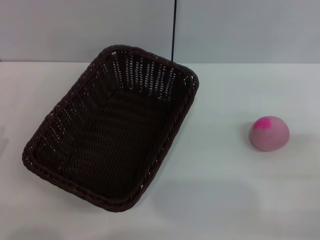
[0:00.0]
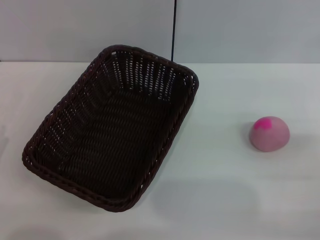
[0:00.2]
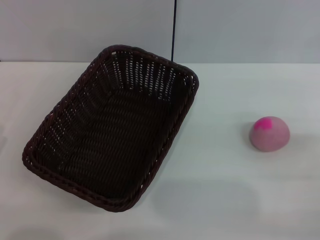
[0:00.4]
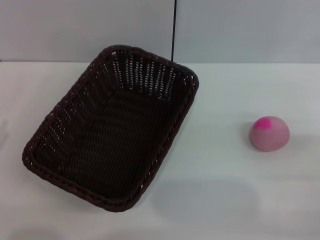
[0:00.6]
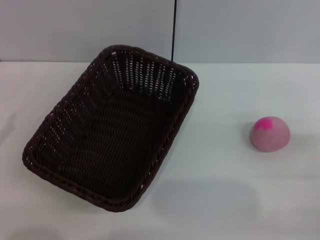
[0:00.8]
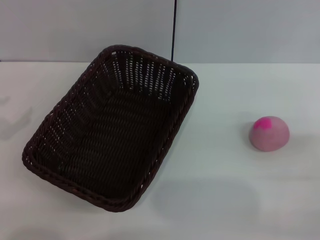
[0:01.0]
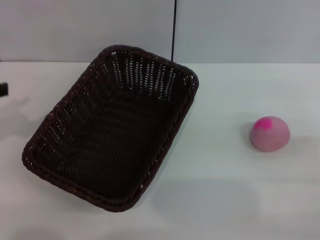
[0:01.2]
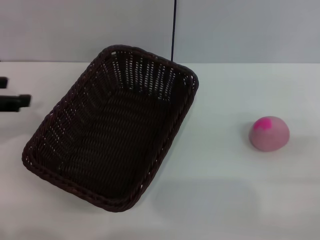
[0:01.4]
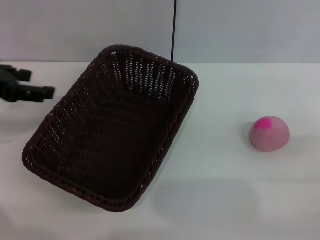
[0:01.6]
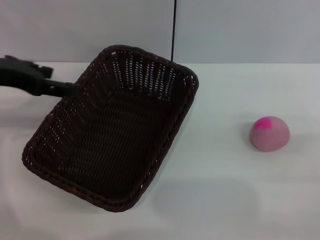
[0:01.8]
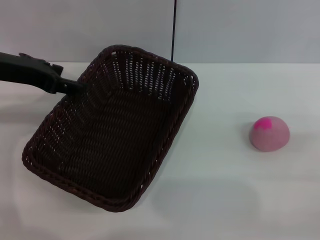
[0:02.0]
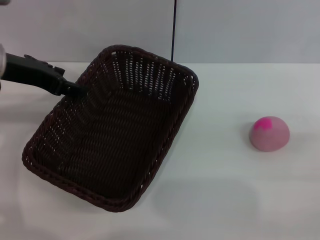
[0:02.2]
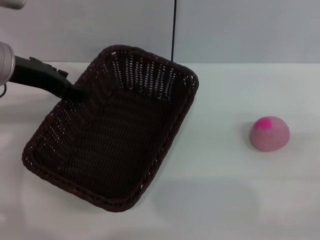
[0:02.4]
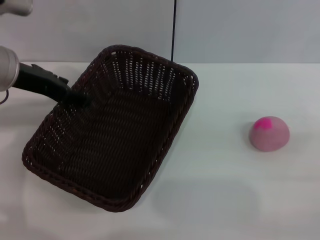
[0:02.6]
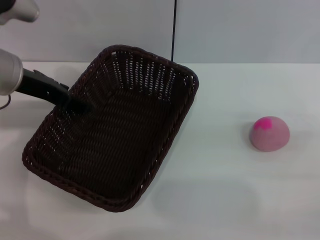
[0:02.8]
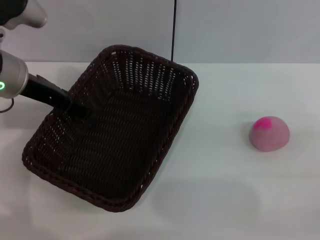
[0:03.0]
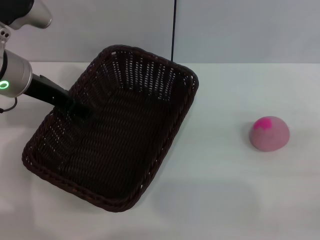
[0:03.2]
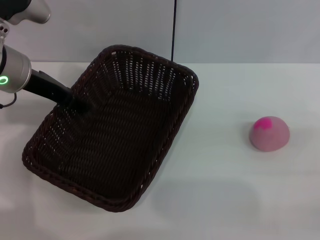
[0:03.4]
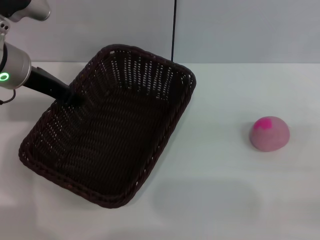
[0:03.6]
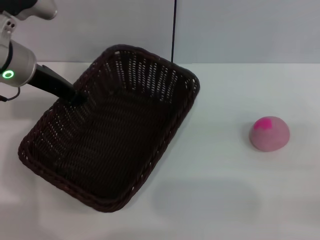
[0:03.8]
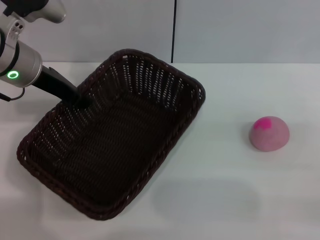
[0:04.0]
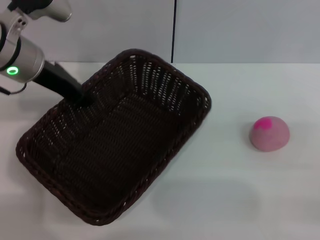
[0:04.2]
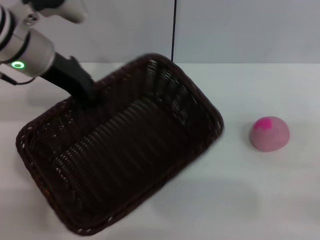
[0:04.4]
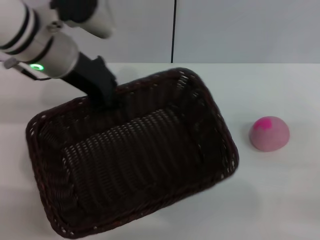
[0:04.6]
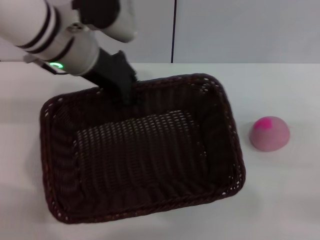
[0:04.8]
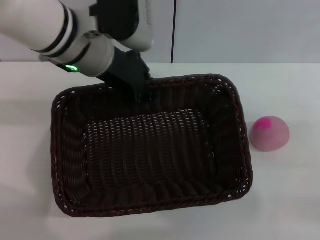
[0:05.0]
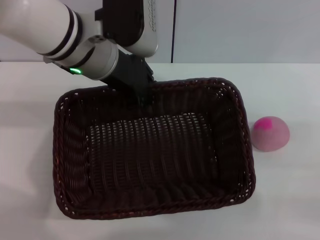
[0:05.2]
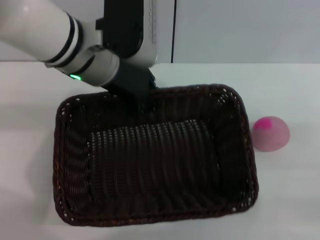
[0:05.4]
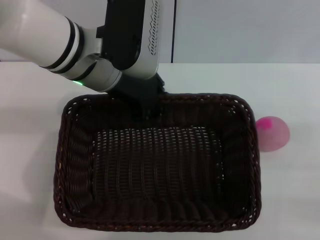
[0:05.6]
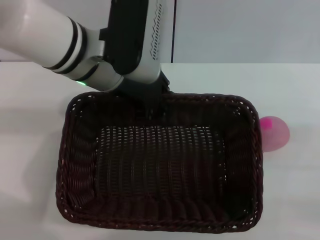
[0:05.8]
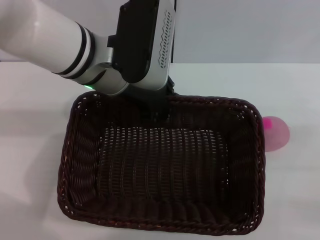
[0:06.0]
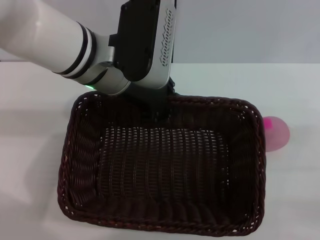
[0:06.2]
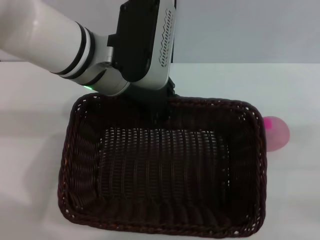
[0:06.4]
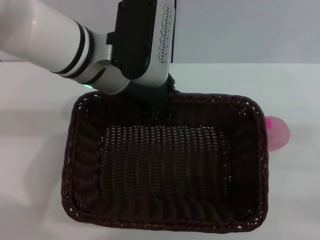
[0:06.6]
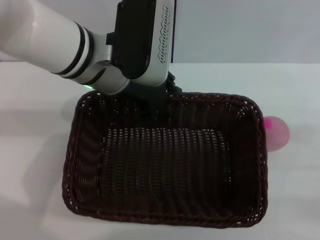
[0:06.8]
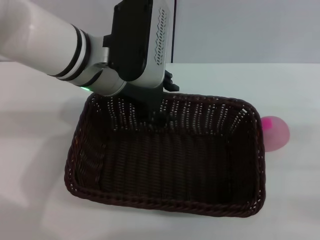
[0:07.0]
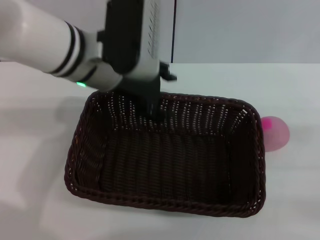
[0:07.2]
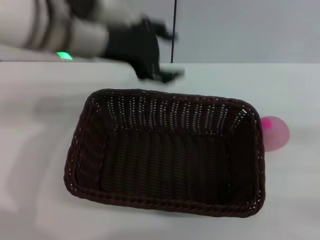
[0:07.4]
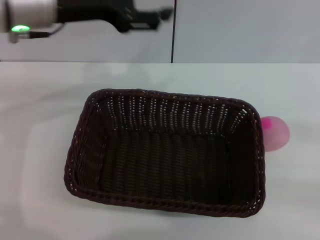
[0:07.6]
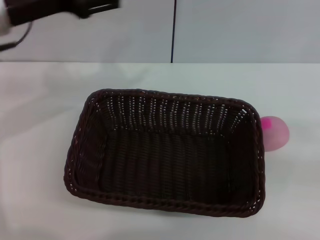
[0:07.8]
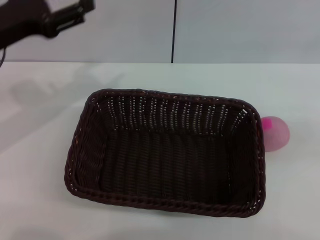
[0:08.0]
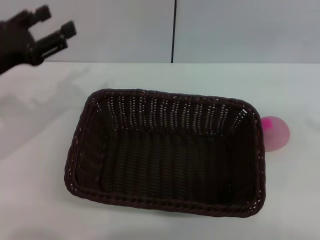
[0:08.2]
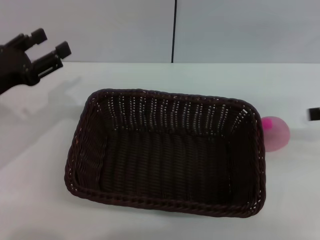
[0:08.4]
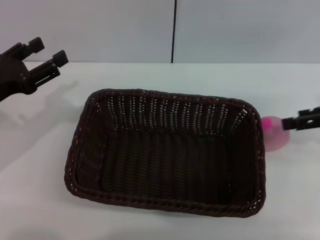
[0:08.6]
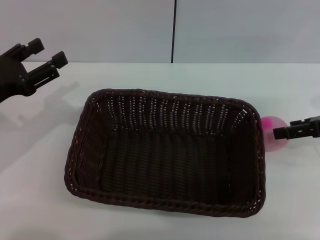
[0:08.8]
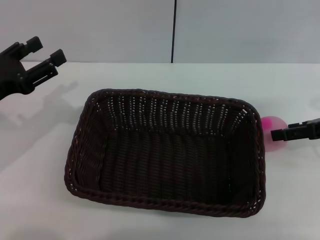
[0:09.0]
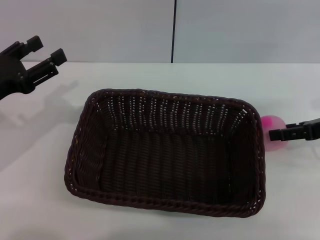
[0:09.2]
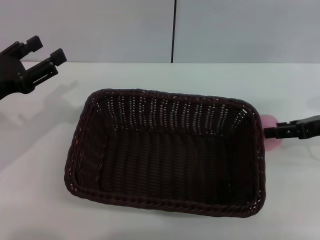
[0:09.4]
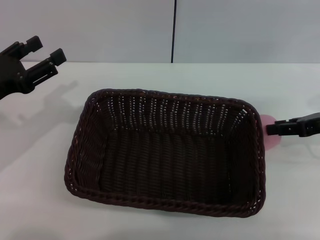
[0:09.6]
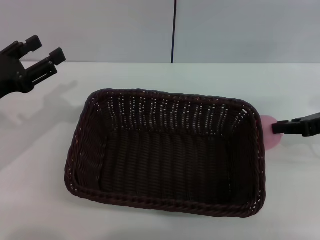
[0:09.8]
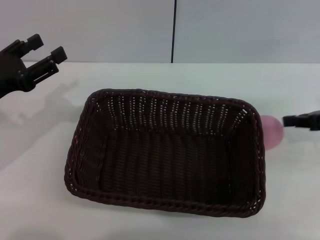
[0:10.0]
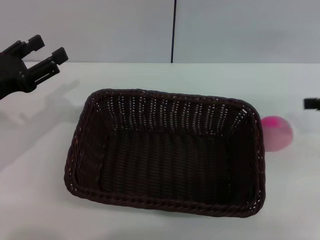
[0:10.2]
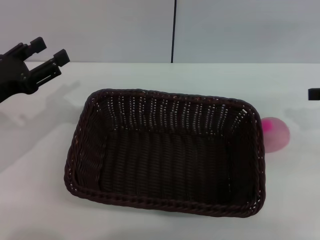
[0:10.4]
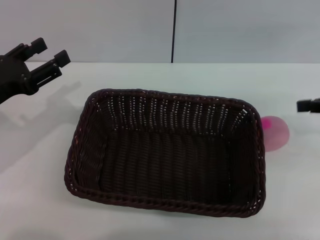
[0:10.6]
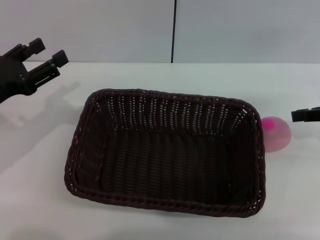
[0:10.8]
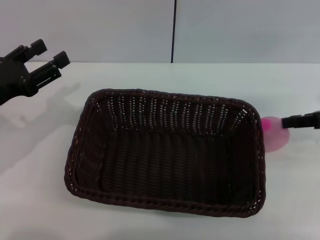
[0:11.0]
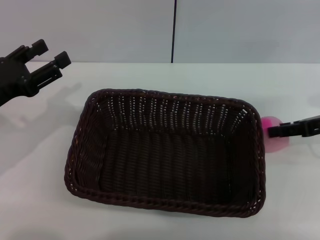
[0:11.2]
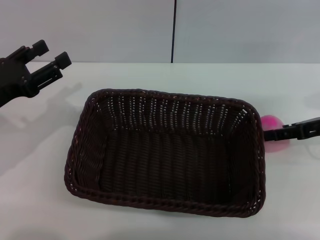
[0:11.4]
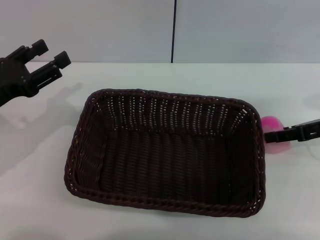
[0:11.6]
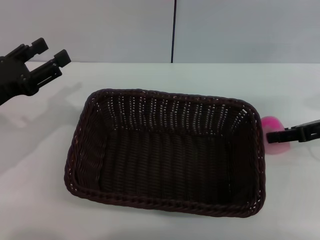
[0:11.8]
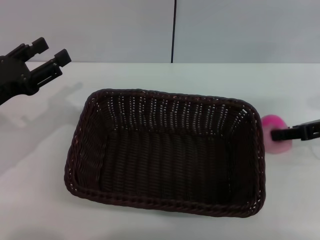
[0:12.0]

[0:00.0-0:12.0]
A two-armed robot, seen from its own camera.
Step, 0:00.0 to 0:04.2: Pick up the dark basket with the left gripper.
Step, 0:04.6 to 0:07.2: Place the dark basket in the center of view with the right gripper.
0:00.0 to 0:01.6: The left gripper travels upward and forward by approximately 25 cm.
0:01.6 to 0:03.0: The left gripper goes about 10 cm to the right.
0:03.0 to 0:04.4: The left gripper moves about 5 cm, and closes.
0:04.4 to 0:06.0: The left gripper moves to the right, some 10 cm.
0:06.0 to 0:07.6: The right gripper is displaced to the right by approximately 5 cm. The left gripper moves to the left, roughly 10 cm, and opens.
0:07.6 to 0:09.0: The left gripper is displaced downward, to the left and backward by about 20 cm; the right gripper heads forward and to the left, covering some 15 cm.
0:09.0 to 0:10.4: The right gripper shifts by about 5 cm, and closes.
0:10.4 to 0:12.0: The right gripper travels downward by roughly 5 cm, and opens its fingers.

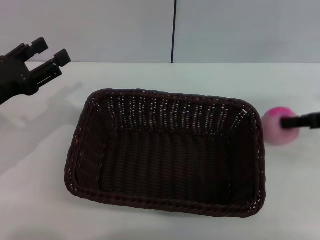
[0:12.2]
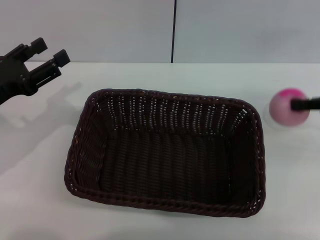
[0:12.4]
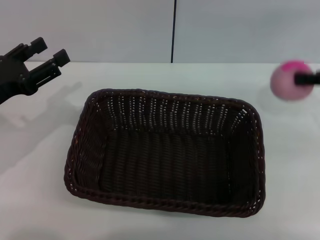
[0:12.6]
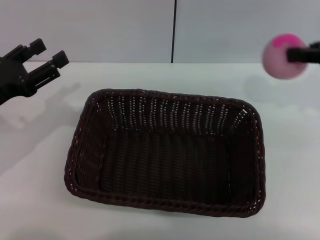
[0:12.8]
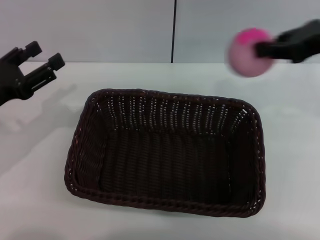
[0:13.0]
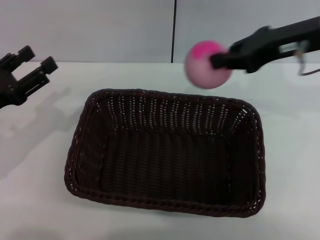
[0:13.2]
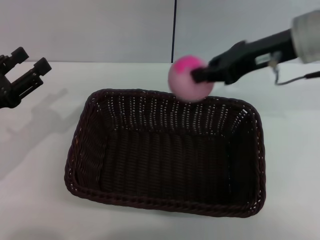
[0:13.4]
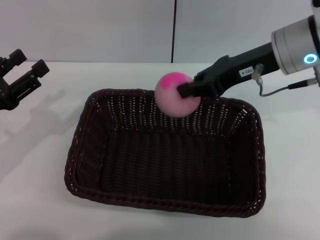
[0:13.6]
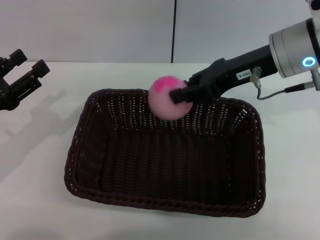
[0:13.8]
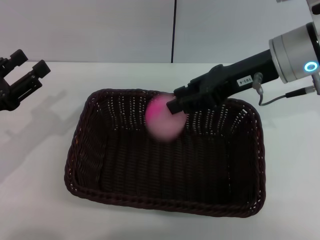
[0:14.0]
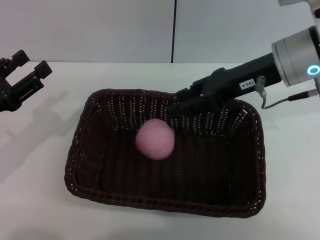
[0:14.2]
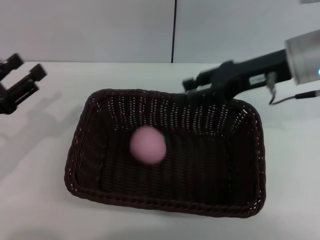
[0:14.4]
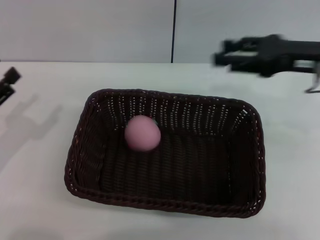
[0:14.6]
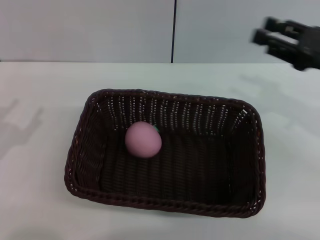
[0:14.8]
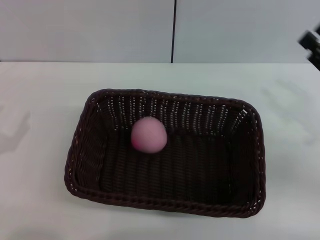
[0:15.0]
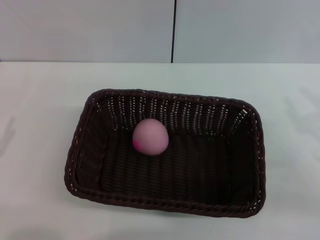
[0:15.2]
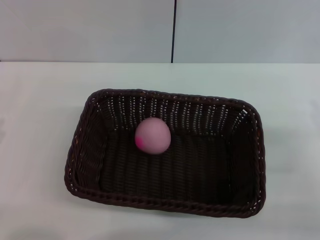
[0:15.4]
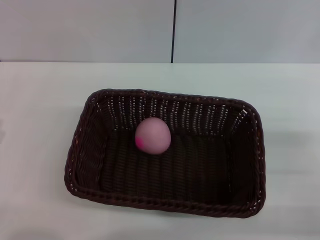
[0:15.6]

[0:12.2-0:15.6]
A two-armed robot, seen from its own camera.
Step, 0:12.6 to 0:14.4: Place the peach into the basket with the left gripper.
0:12.2 to 0:13.8: The right gripper shifts approximately 20 cm to the left and upward.
0:13.8 to 0:15.6: The left gripper heads backward and downward, covering roughly 10 cm; the right gripper heads backward, to the right and downward, covering approximately 30 cm, and opens its fingers.
